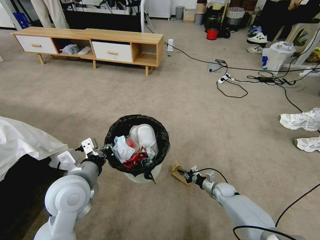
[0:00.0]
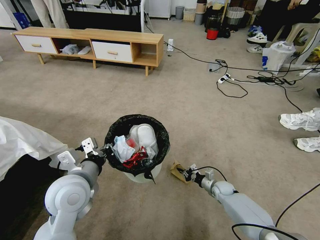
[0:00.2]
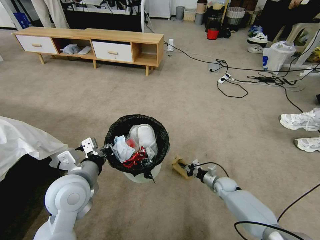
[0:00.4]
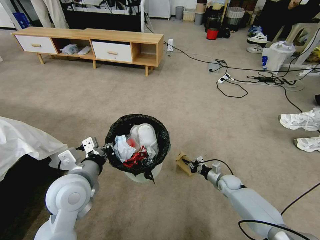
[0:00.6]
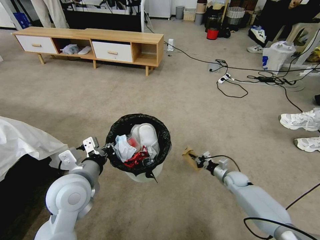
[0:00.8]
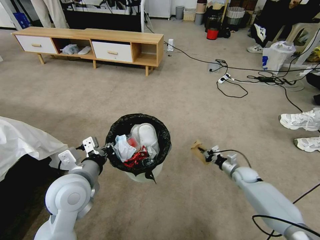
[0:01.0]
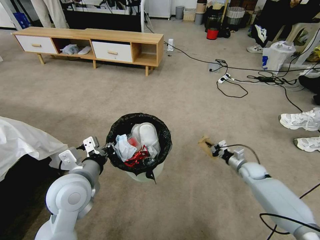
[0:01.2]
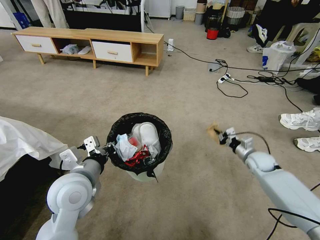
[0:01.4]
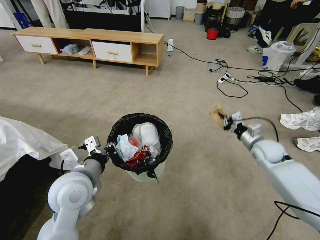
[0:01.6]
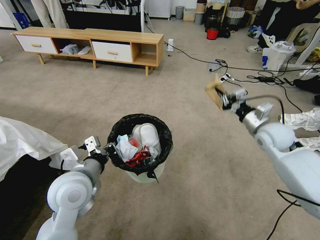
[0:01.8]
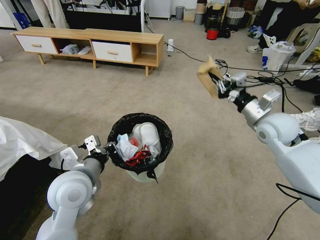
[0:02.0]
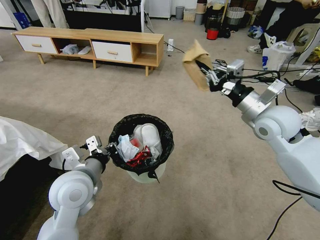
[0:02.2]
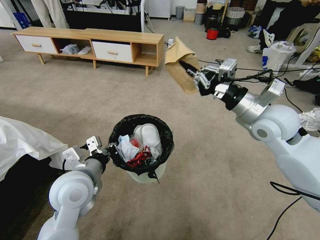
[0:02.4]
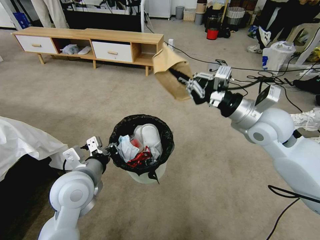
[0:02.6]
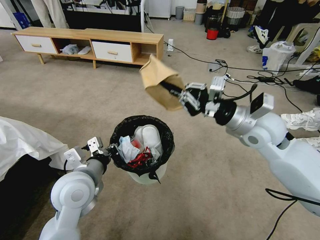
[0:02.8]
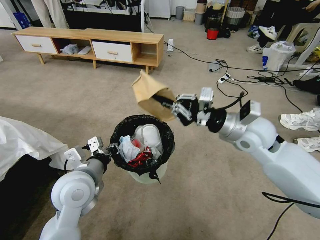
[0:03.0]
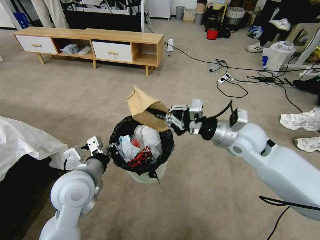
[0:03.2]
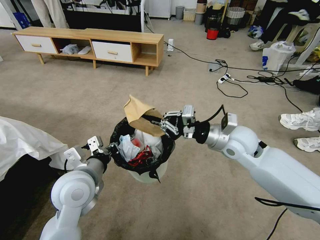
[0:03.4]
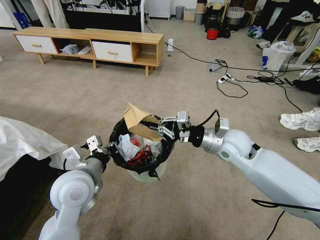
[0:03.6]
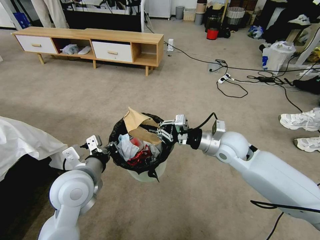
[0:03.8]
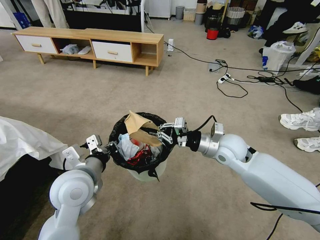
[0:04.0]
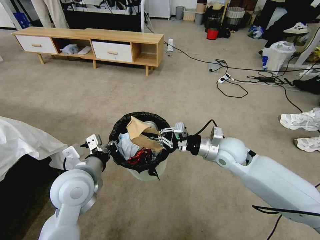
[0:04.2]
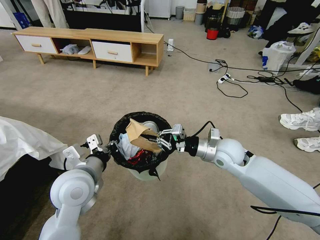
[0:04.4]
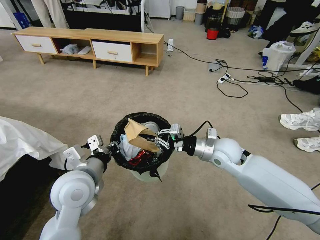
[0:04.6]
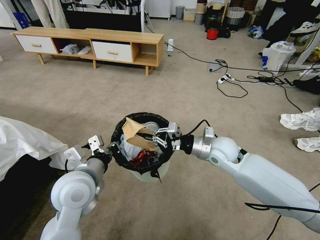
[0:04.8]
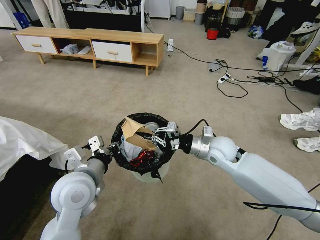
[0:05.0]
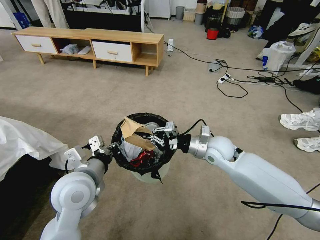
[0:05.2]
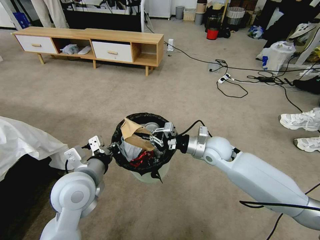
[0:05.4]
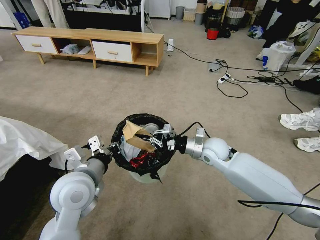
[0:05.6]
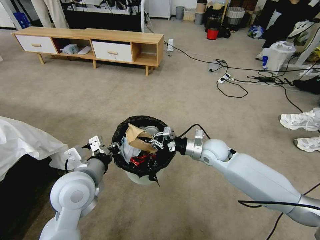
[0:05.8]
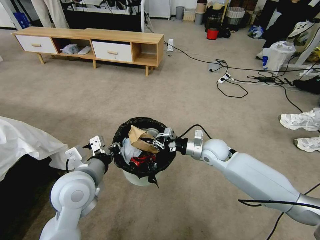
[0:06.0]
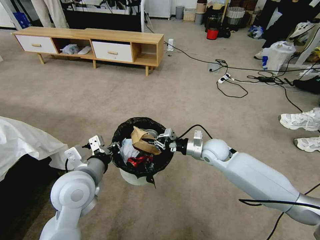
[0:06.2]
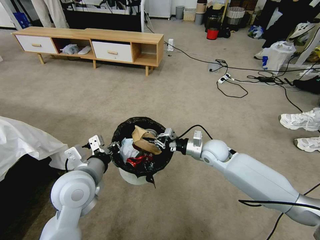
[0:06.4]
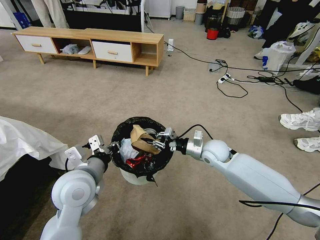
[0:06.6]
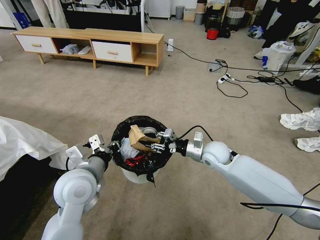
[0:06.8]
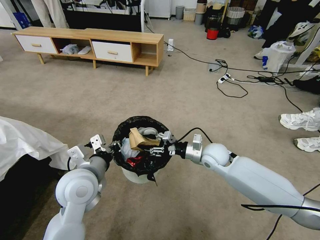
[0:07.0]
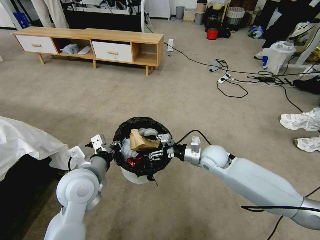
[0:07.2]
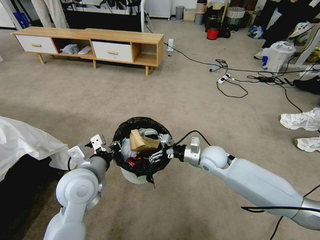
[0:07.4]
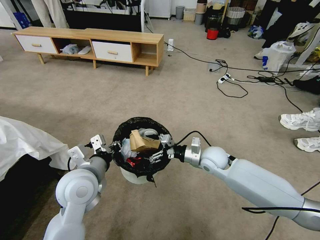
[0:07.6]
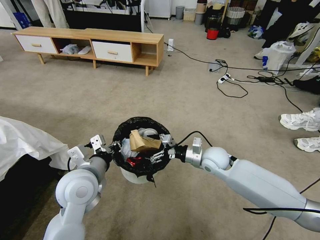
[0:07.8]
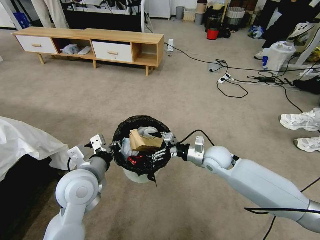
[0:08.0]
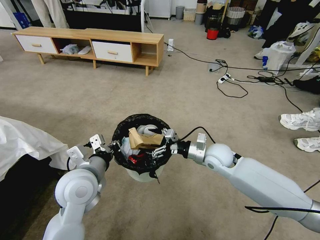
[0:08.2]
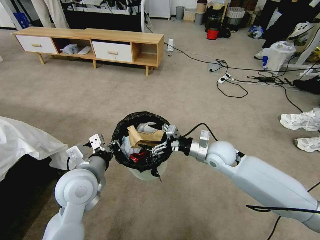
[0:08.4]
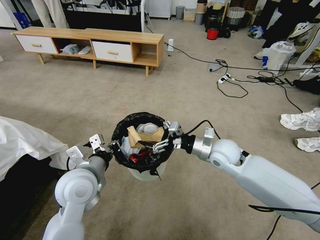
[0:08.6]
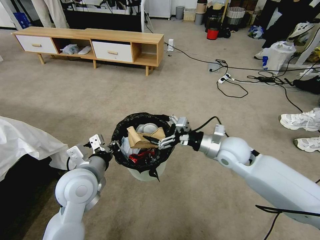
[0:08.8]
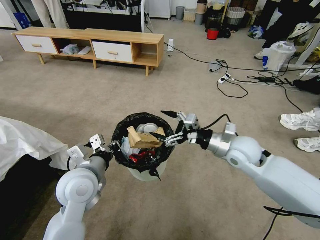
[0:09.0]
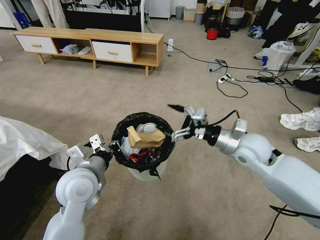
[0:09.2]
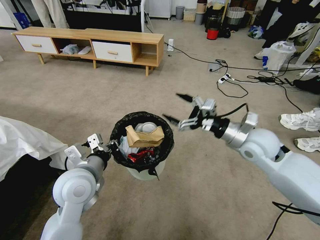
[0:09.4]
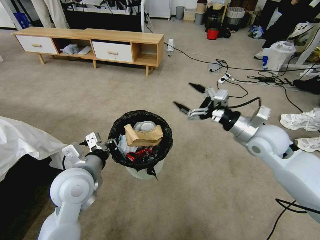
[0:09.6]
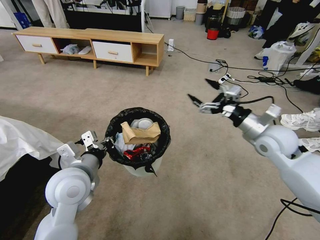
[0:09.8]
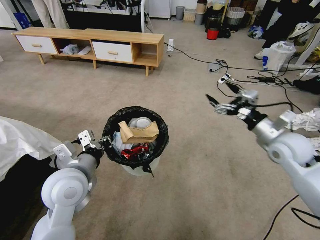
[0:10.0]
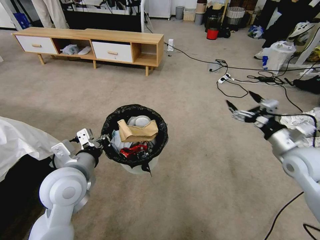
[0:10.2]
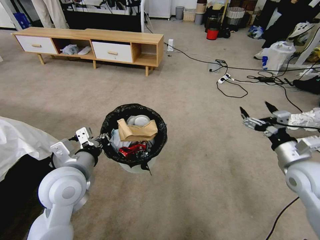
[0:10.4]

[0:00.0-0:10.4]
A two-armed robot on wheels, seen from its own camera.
Task of the whole recording: Pick up the trash bin and place the garbage on the floor into it.
0:00.0 to 0:01.4: The right gripper moves upward and to the right, about 20 cm.
0:01.4 to 0:03.0: The right gripper heads upward and to the left, covering approximately 30 cm.
0:03.0 to 0:04.4: The right gripper moves downward, roughly 10 cm.
0:04.4 to 0:06.0: The right gripper moves downward, approximately 5 cm.
0:06.0 to 0:07.4: The right gripper opens its fingers.
0:07.4 to 0:09.0: The right gripper moves upward and to the right, approximately 10 cm.
0:09.0 to 0:10.4: The right gripper shifts about 15 cm to the right and backward.

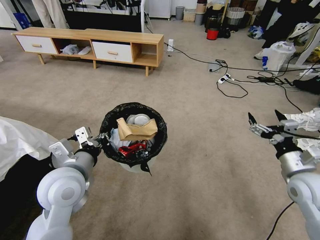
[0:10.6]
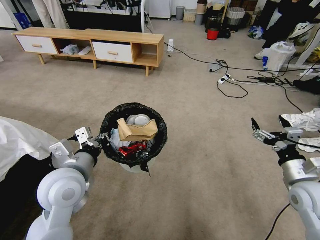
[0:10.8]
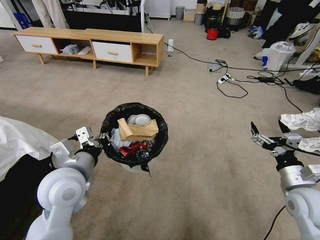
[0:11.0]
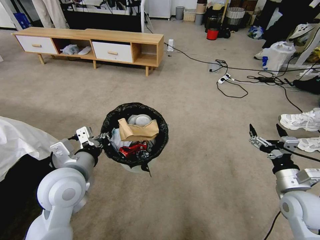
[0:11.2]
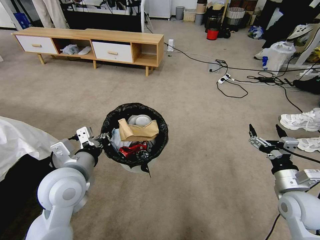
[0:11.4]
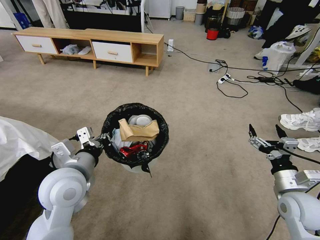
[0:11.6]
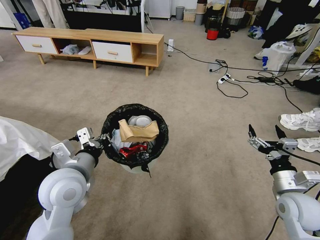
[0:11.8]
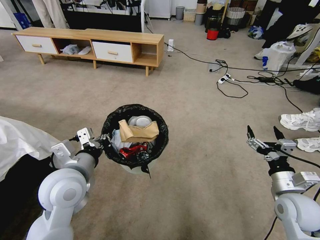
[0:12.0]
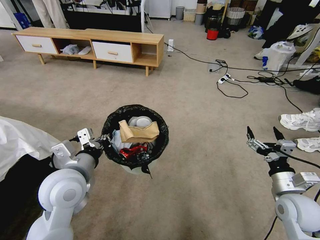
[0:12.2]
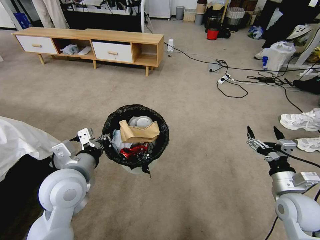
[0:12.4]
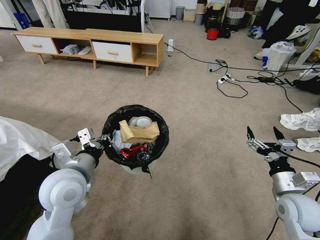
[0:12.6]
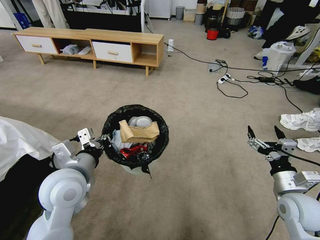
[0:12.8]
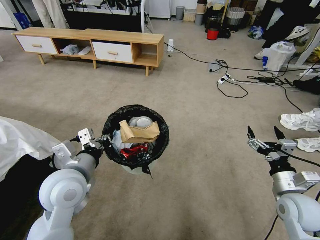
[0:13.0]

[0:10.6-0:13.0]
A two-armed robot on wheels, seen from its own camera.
Task of the whole recording: Pick up the trash bin and place the garbage on the floor into it.
0:10.6 to 0:11.8: The right gripper ends up approximately 5 cm from where it was.
0:11.8 to 0:13.0: Both grippers stay about where they are.
